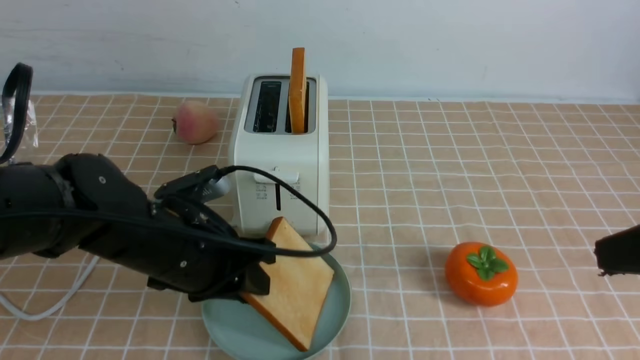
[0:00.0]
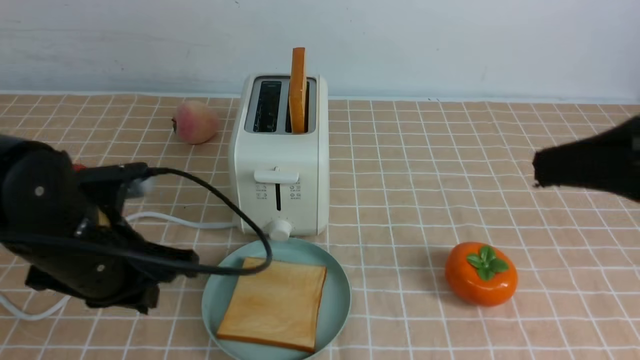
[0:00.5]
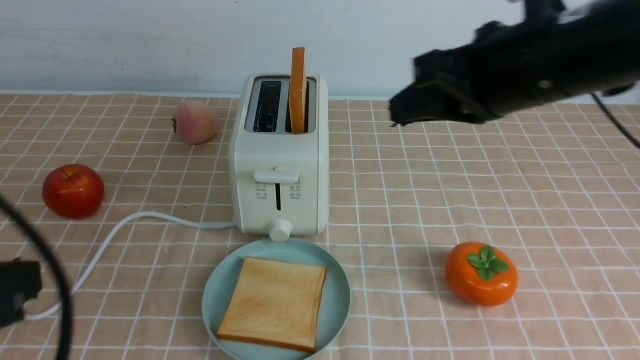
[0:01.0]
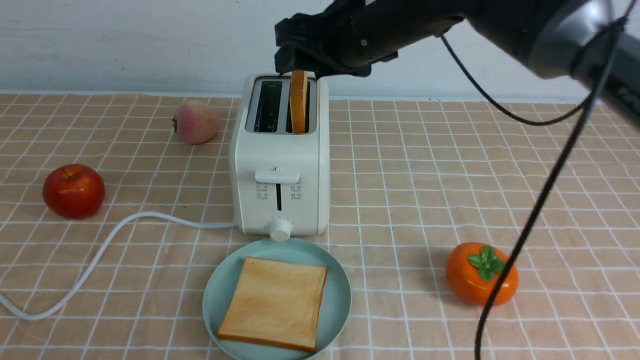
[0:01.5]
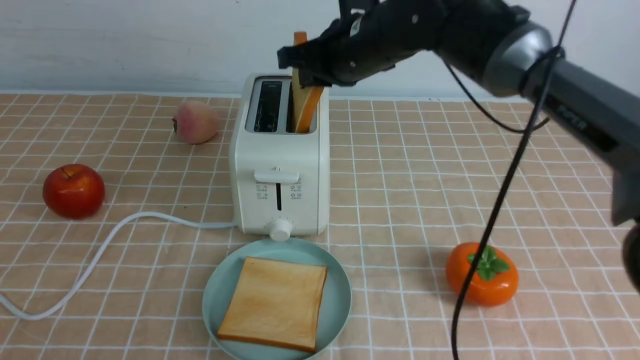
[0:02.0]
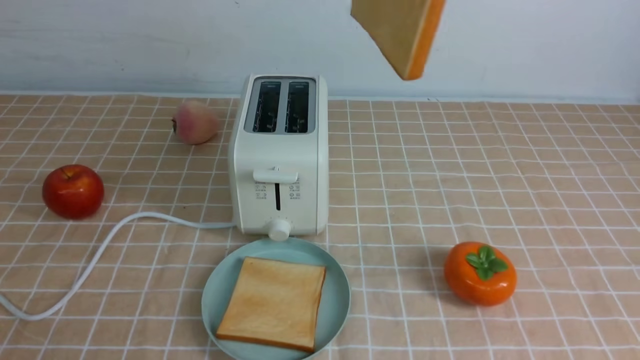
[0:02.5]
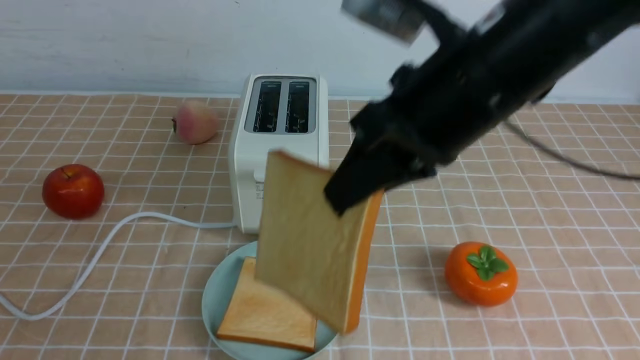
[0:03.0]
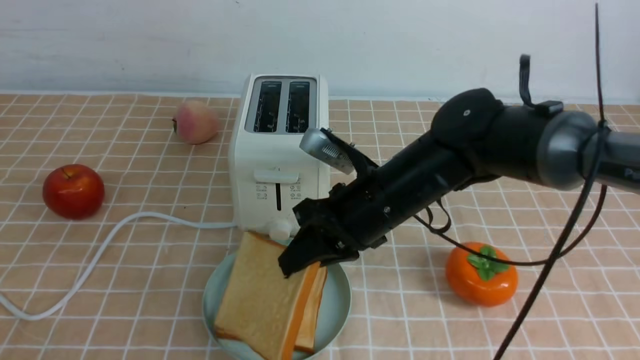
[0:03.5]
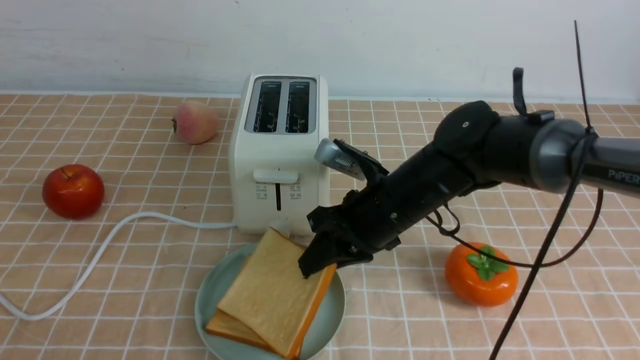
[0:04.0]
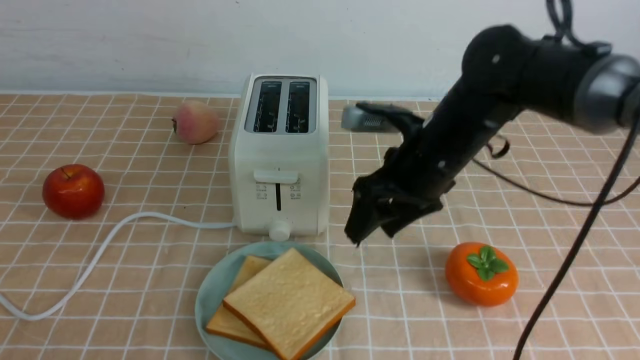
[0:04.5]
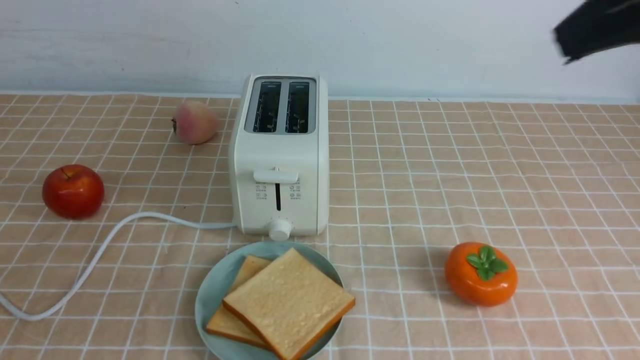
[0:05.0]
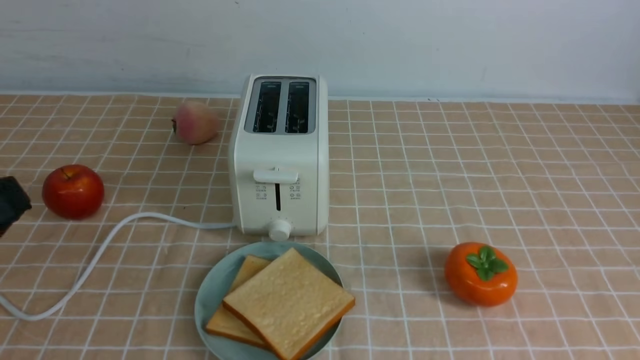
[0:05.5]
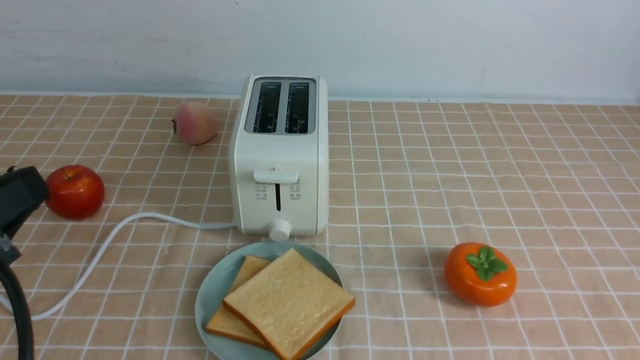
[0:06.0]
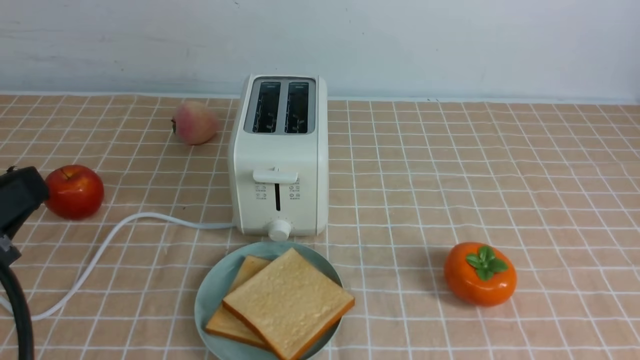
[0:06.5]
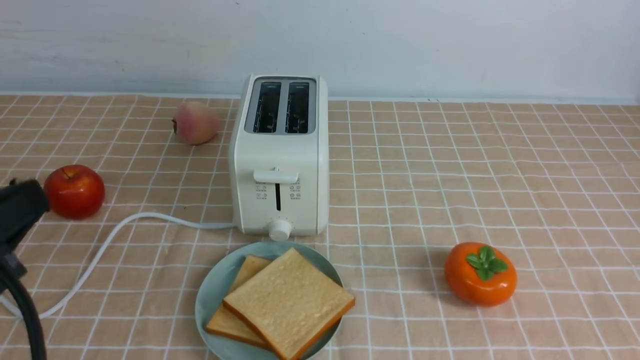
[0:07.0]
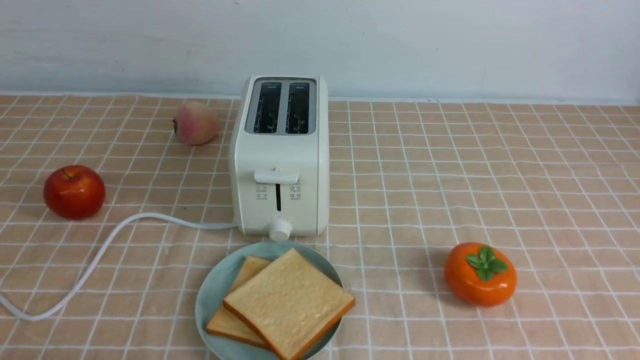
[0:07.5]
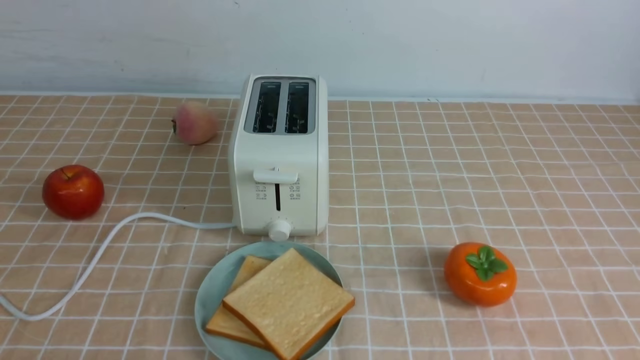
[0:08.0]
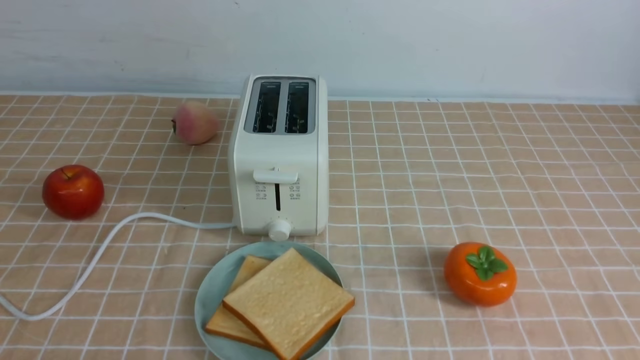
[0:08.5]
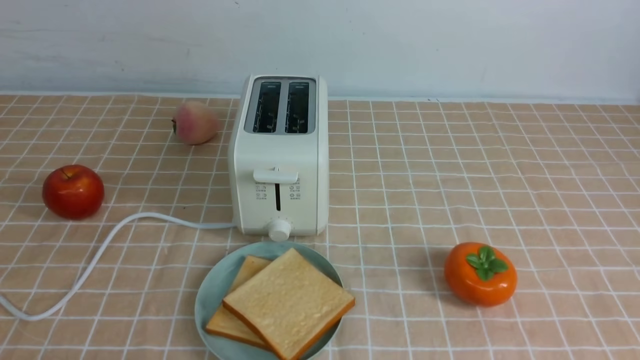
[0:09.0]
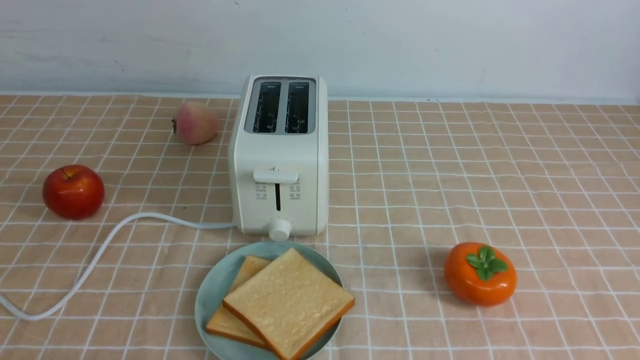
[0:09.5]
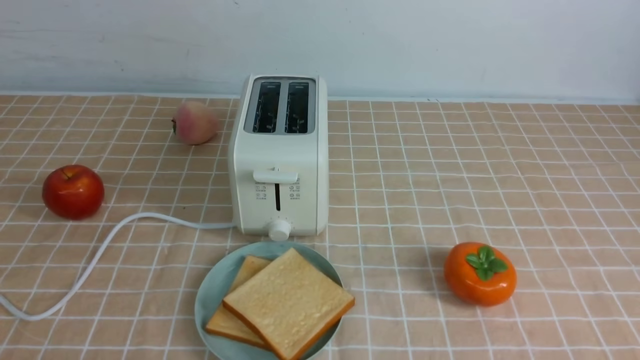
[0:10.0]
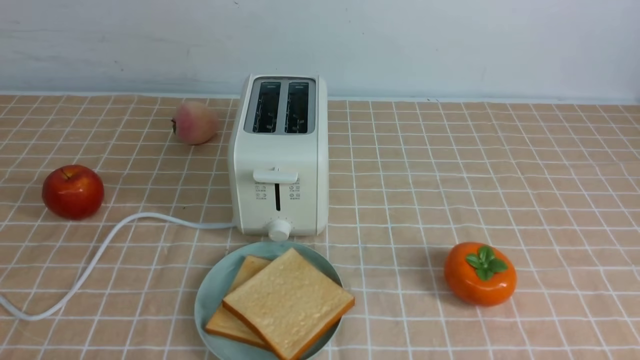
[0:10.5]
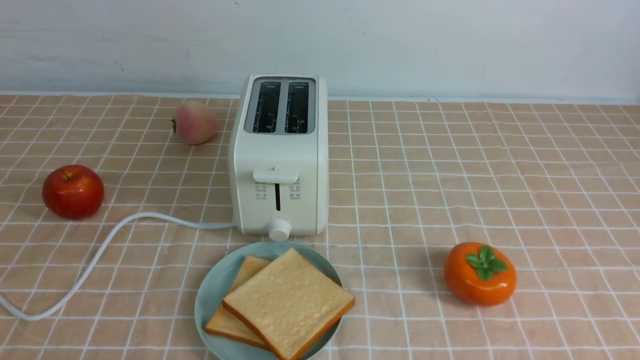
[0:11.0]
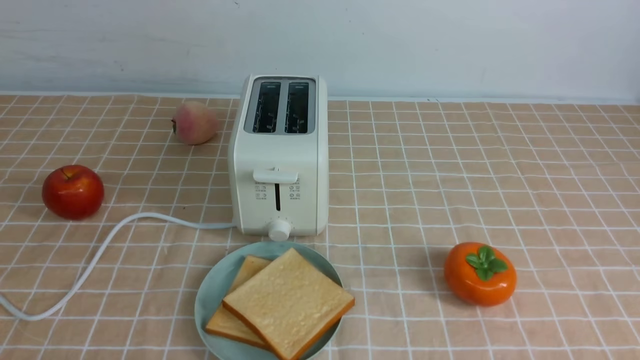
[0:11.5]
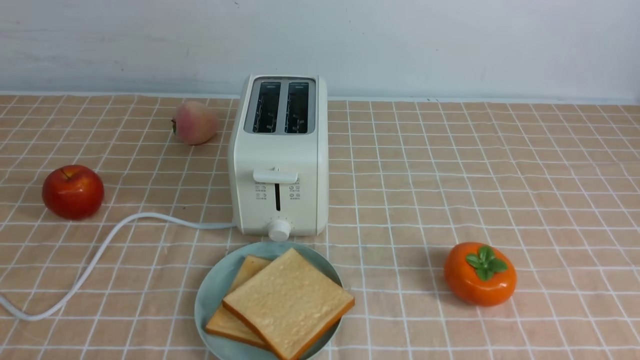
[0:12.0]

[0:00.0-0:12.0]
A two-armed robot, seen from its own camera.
Task of the whole recording: take toasted bread from bread machine on light coffee tablecloth place on plate.
Step, 0:01.0 to 0:02.0: use the right arm to take out a slice of bread.
Step, 0:02.5 to 0:04.0: use the right arm to put a slice of bread into the plate.
0:00.0 to 0:02.0: The right gripper is displaced forward and to the left by roughly 35 cm, and opens up. Meanwhile the left gripper moves backward and to the left, approximately 30 cm, and closes.
0:02.0 to 0:04.0: The right gripper heads downward and backward, covering some 15 cm.
0:04.0 to 0:06.0: The left gripper shifts some 10 cm forward; the right gripper shifts roughly 40 cm backward and to the right, and opens and closes again.
0:06.0 to 0:08.0: The left gripper moves downward, approximately 15 cm.
